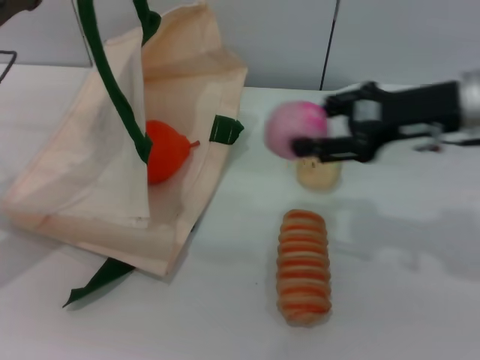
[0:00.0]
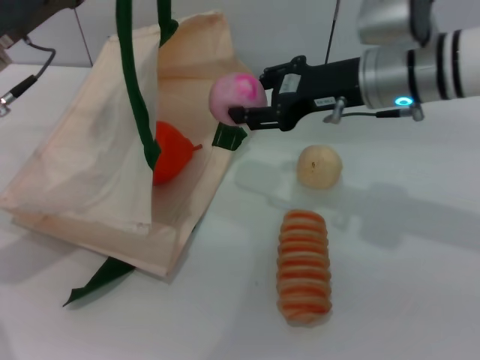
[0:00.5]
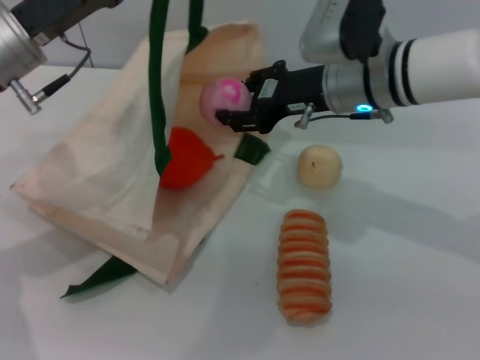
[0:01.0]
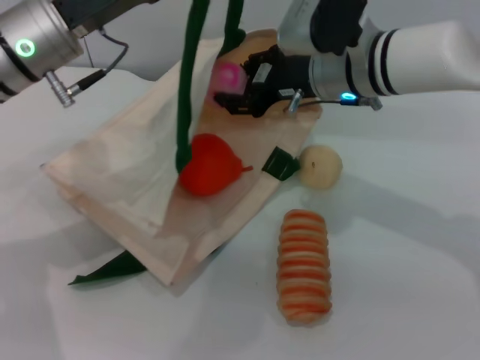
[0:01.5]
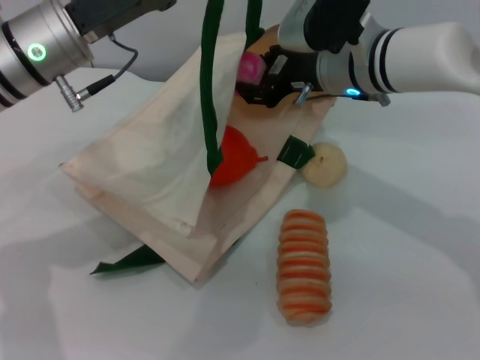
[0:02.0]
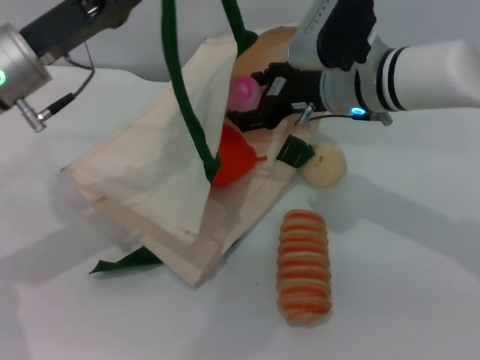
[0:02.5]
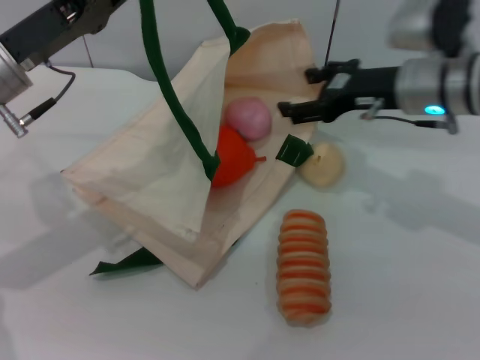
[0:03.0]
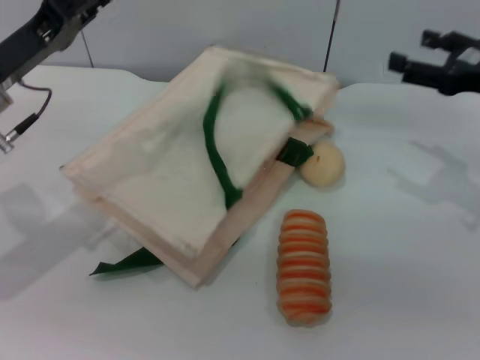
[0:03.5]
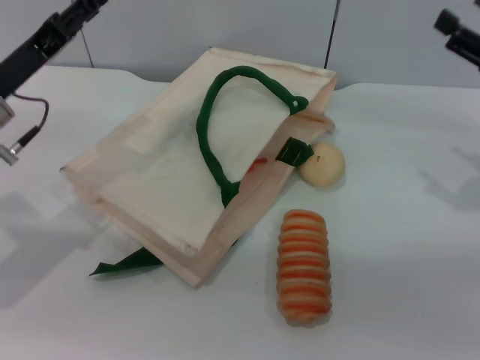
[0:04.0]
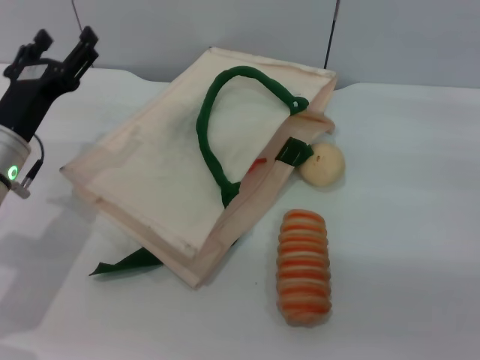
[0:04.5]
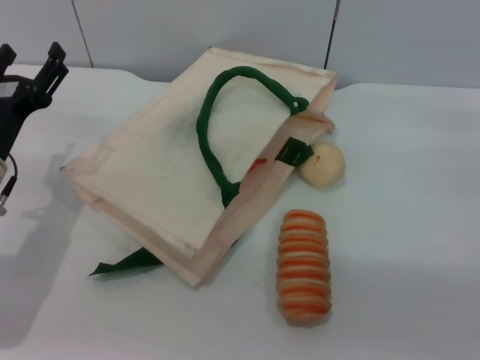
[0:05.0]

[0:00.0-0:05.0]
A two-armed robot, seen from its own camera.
Task of the whole recording: pick up the orange and peach from the table and place it in the white handbag.
Step, 0:00.0 to 0:03.0: Place the peach into the woven bag with the right gripper.
Step, 0:03.5 to 0:04.0: Lower the woven bag with the left gripper to close it.
0:00.0 to 0:02.5: The left gripper moves to the right, roughly 5 cm; the right gripper moves to the left, about 10 cm.
0:02.5 to 0:05.0: The left gripper goes some 10 cm downward and backward, and opens its fingers, while the right gripper shifts some 25 cm to the right and backward.
